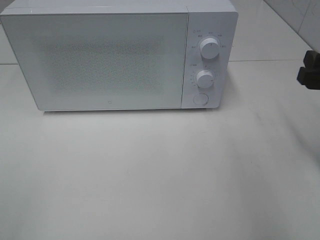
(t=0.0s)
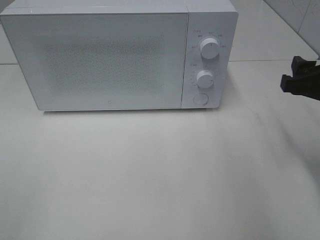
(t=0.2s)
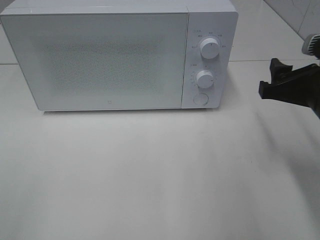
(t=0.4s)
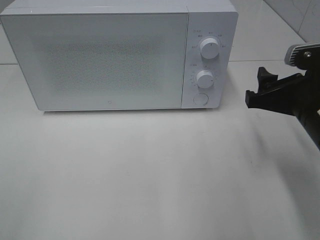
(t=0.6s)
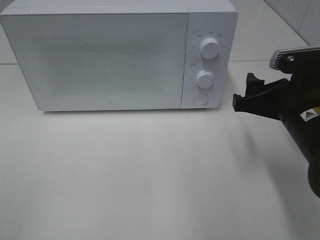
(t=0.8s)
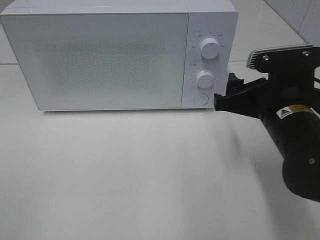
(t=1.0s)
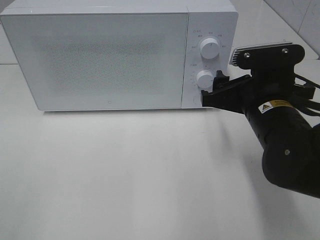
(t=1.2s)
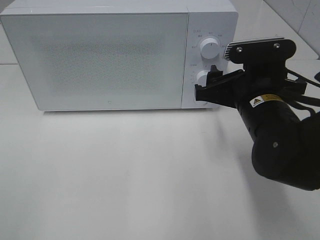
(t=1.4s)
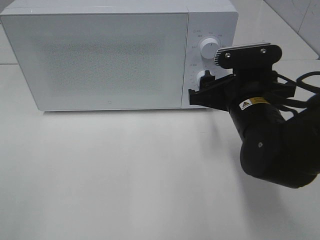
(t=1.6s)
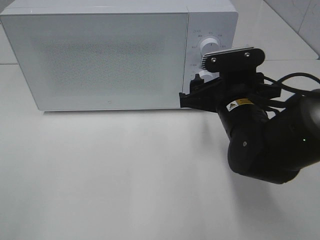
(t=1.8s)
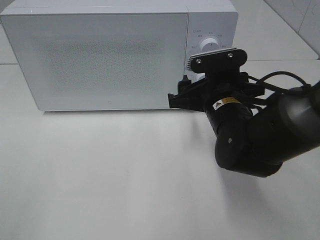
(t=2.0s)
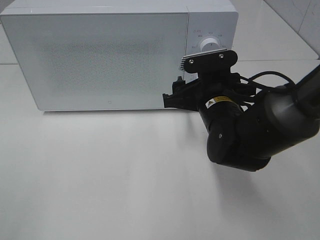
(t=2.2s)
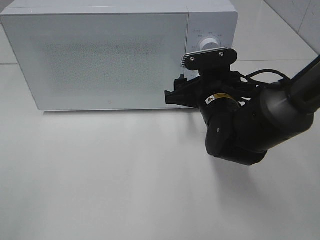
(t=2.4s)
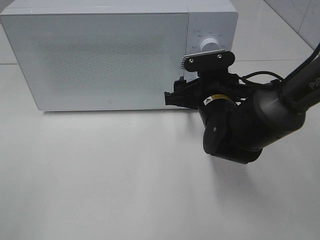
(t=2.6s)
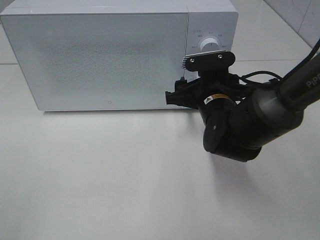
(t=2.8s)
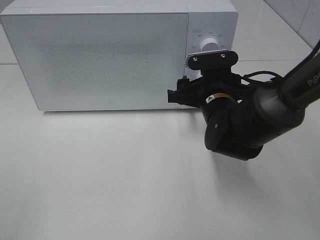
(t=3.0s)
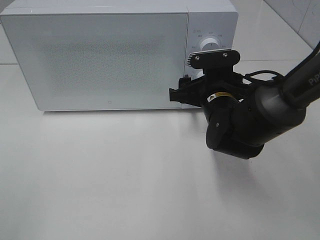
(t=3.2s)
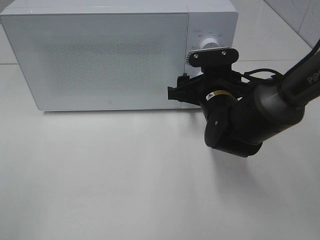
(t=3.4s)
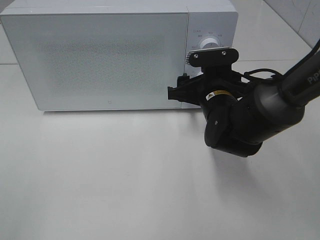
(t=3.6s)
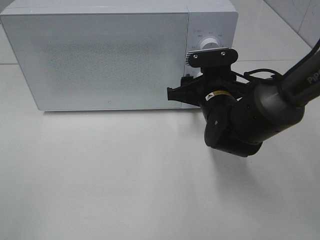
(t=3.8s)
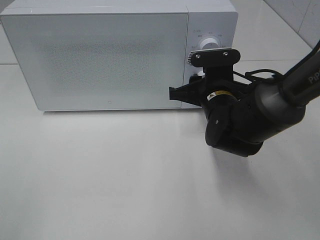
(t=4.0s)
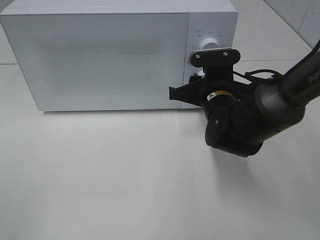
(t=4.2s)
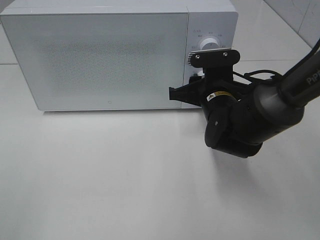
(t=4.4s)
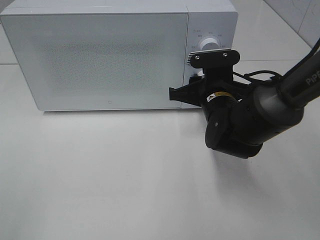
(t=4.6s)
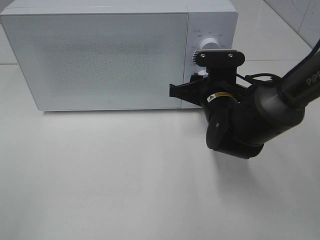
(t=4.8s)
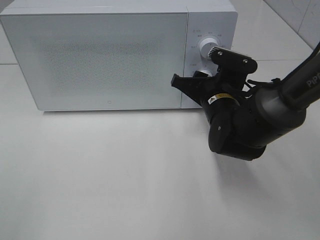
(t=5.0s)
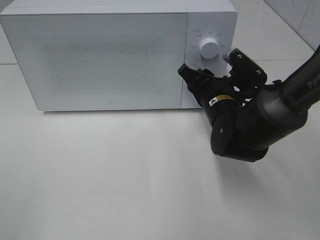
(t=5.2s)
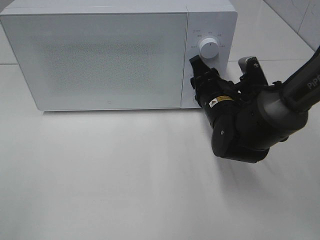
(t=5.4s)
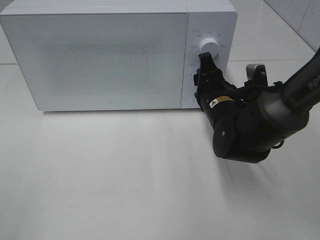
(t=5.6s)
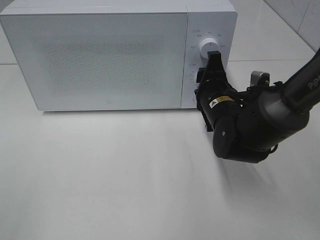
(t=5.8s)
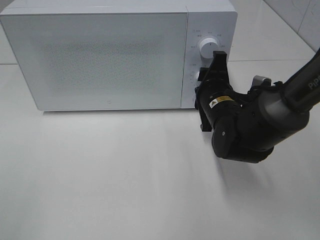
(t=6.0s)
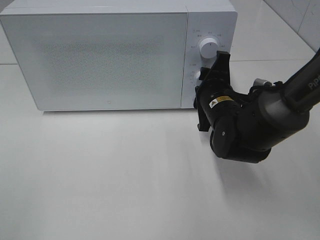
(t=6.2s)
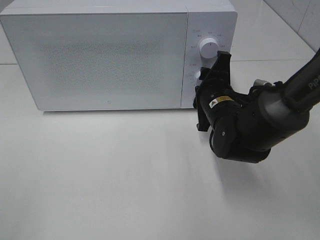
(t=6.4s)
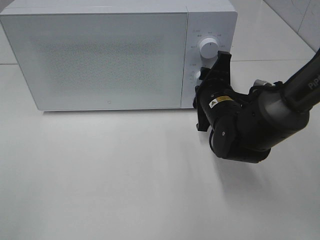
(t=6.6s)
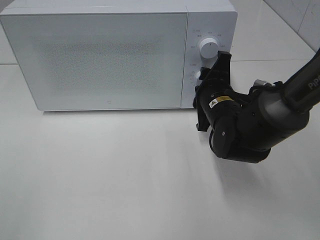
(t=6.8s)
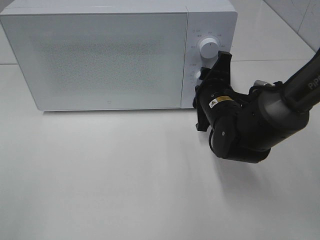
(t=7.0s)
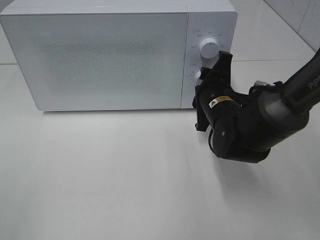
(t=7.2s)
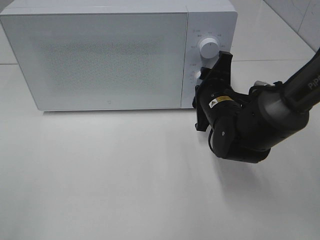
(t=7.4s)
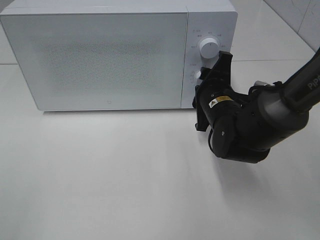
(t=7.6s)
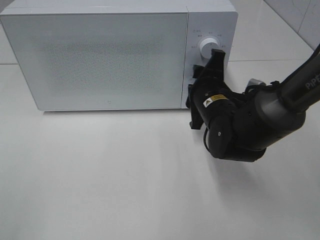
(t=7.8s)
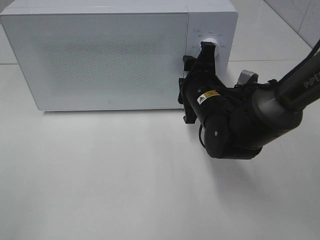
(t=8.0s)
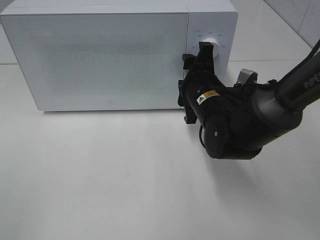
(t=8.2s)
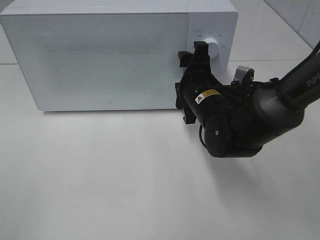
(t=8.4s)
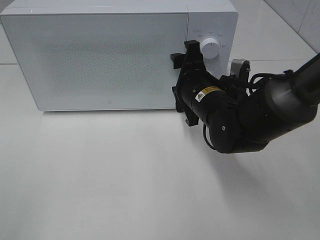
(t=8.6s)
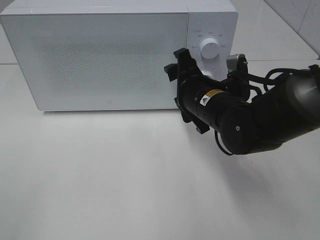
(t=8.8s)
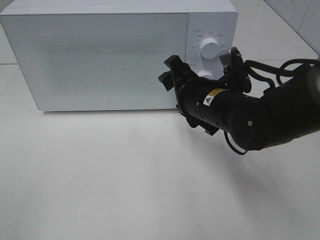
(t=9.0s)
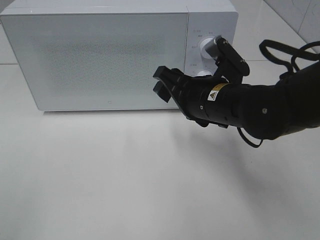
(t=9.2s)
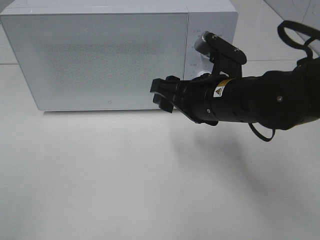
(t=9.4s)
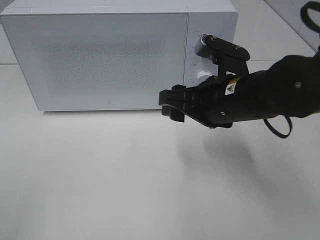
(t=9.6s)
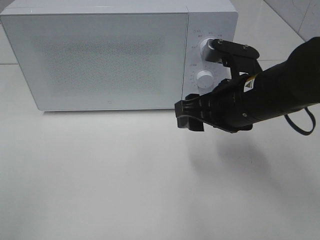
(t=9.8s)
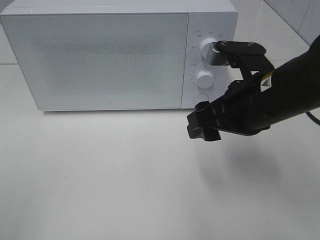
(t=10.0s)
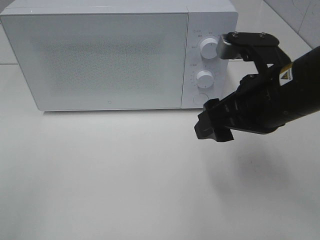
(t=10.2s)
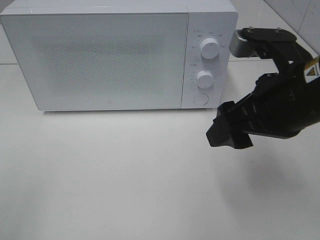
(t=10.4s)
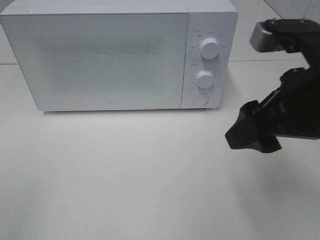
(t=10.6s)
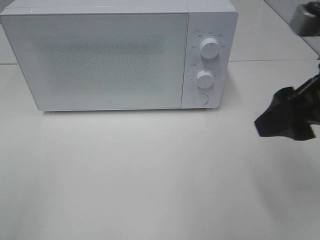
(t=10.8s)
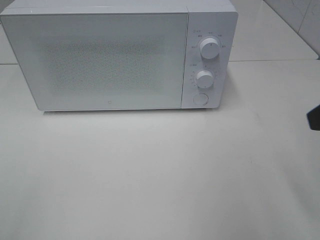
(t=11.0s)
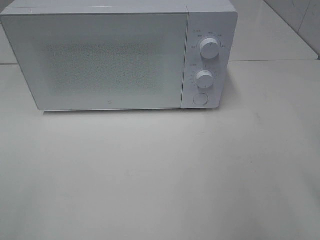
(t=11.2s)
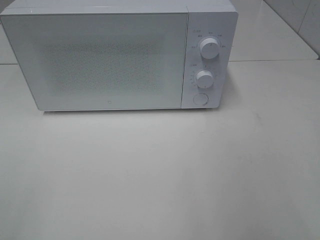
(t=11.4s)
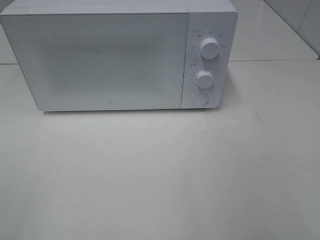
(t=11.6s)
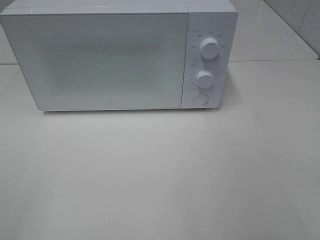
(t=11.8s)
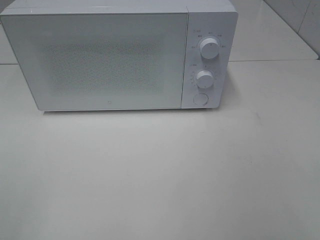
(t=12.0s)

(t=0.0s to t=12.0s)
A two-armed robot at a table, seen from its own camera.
Task of the whole recording: Heat the burger.
Step, t=0.0s - t=8.0s: Right hand: twist timer button.
t=0.0s - t=1.6s: The right gripper moves to the left, some 15 cm.
t=1.6s - t=3.0s: The right gripper moves forward, about 5 cm.
t=3.0s - t=4.4s: The right gripper closes up.
t=6.0s - t=7.6s: The grippers make only small movements.
t=7.6s - t=9.0s: The right gripper ends up about 5 cm from where it was.
t=9.0s - t=10.4s: The right gripper heads upward, backward and to the right, covering approximately 15 cm.
t=10.4s - t=12.0s: The right gripper moves backward and to the right, about 25 cm.

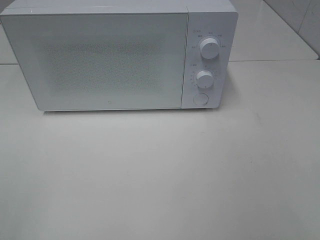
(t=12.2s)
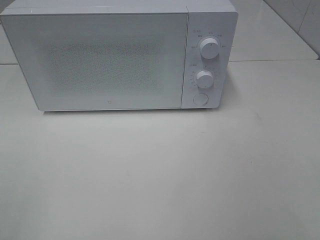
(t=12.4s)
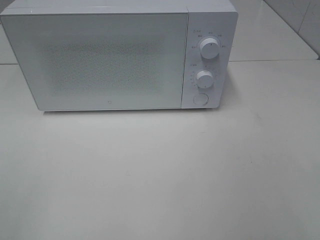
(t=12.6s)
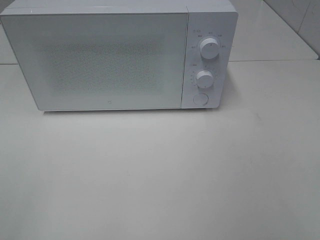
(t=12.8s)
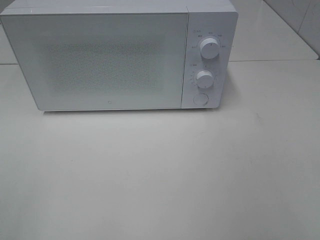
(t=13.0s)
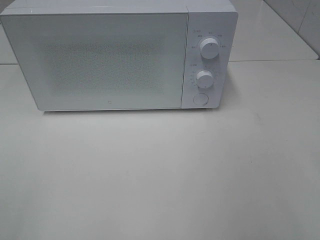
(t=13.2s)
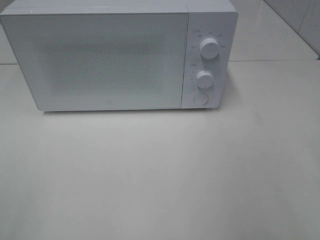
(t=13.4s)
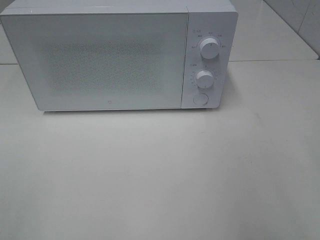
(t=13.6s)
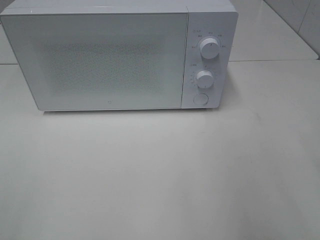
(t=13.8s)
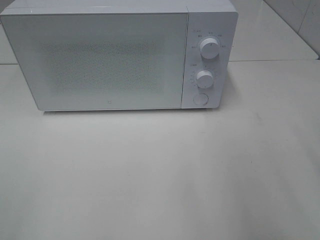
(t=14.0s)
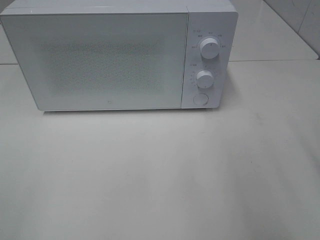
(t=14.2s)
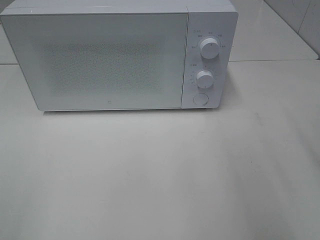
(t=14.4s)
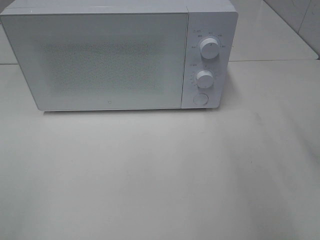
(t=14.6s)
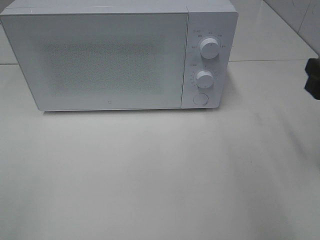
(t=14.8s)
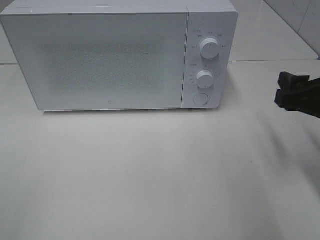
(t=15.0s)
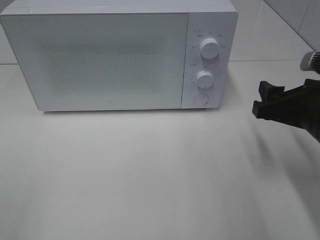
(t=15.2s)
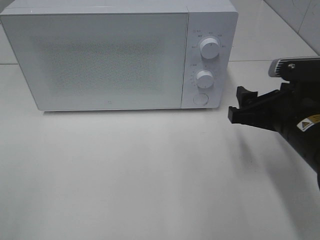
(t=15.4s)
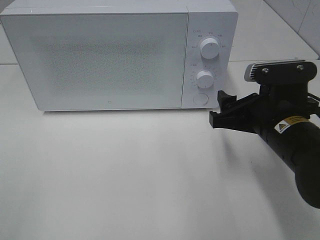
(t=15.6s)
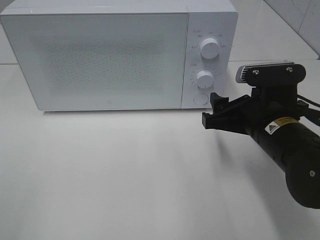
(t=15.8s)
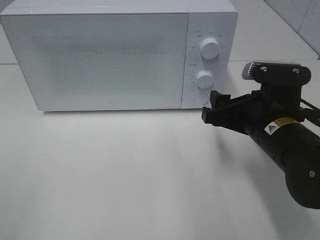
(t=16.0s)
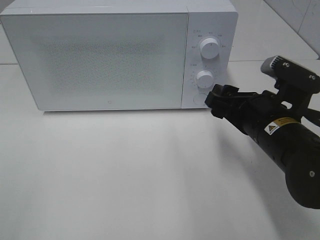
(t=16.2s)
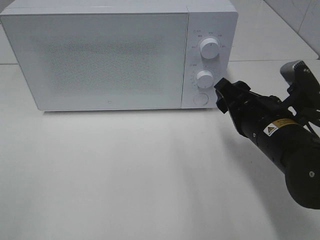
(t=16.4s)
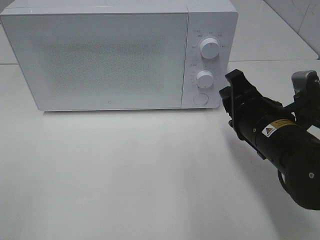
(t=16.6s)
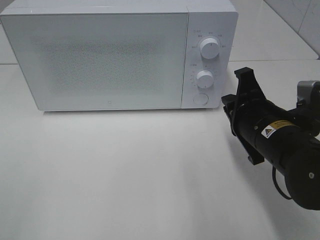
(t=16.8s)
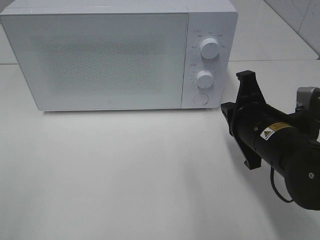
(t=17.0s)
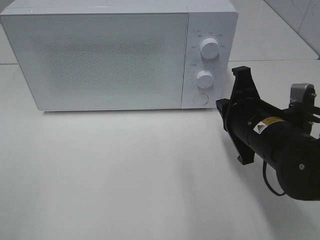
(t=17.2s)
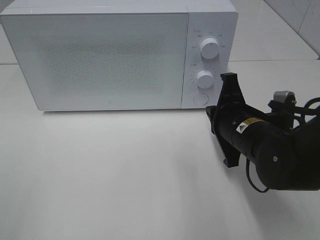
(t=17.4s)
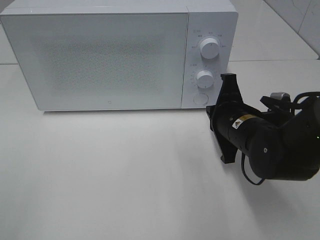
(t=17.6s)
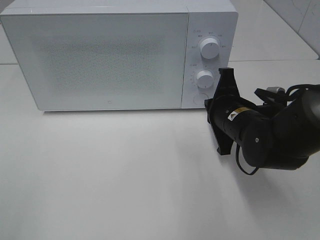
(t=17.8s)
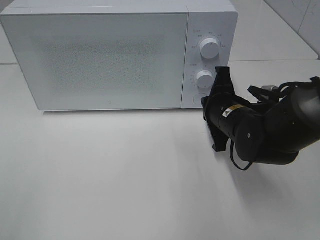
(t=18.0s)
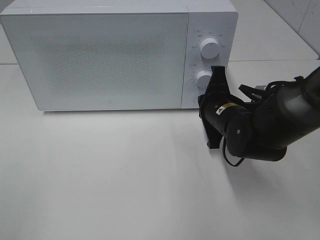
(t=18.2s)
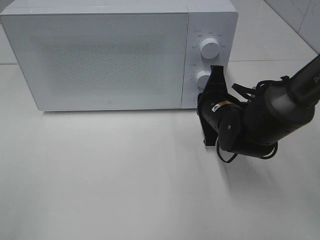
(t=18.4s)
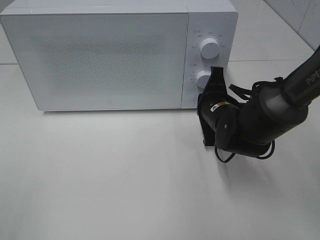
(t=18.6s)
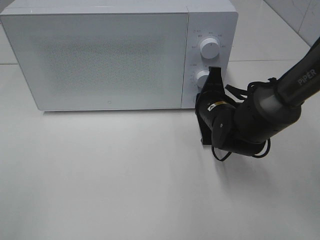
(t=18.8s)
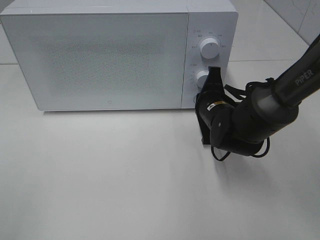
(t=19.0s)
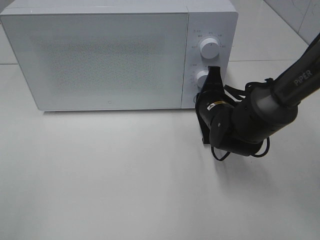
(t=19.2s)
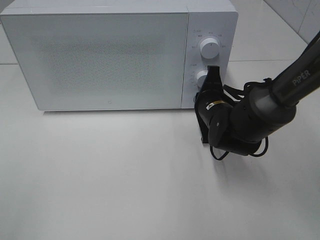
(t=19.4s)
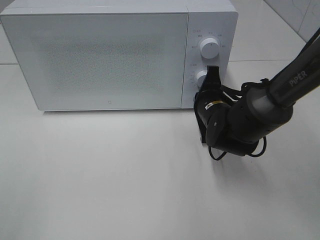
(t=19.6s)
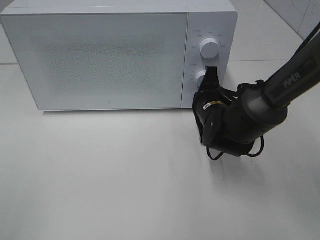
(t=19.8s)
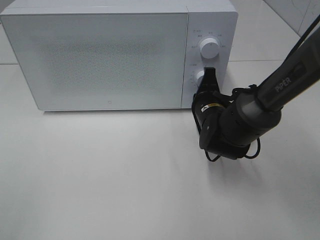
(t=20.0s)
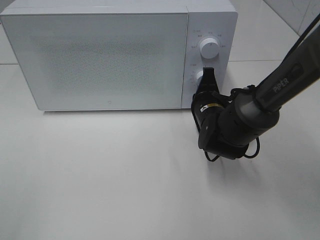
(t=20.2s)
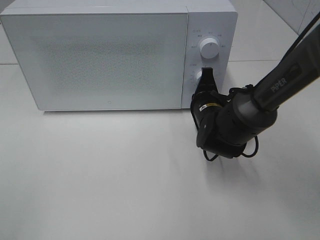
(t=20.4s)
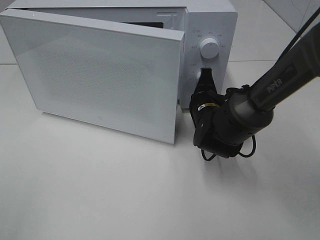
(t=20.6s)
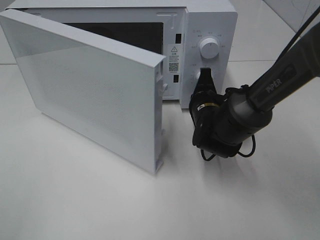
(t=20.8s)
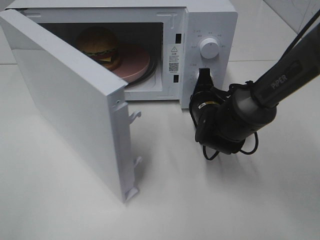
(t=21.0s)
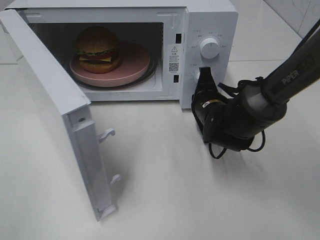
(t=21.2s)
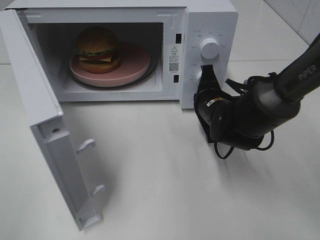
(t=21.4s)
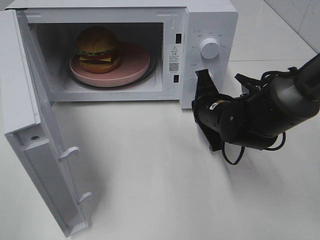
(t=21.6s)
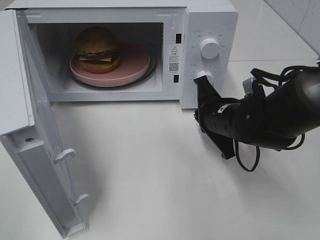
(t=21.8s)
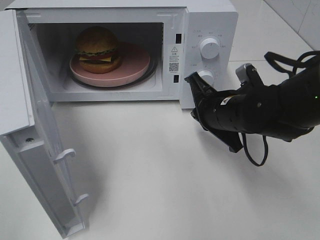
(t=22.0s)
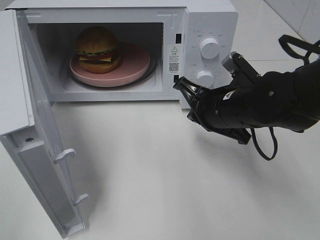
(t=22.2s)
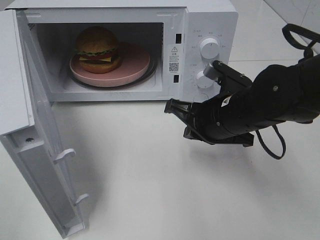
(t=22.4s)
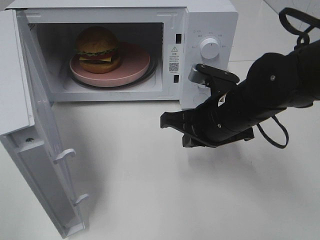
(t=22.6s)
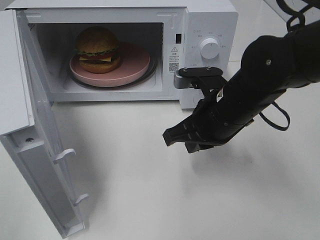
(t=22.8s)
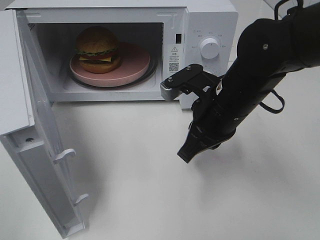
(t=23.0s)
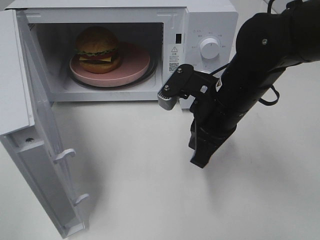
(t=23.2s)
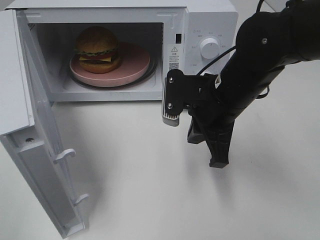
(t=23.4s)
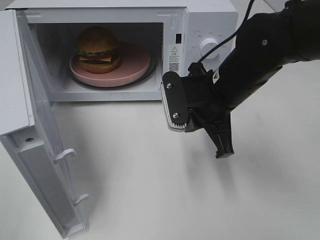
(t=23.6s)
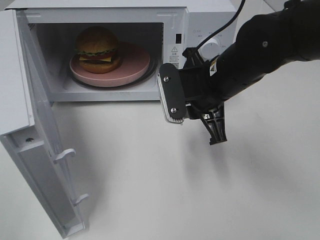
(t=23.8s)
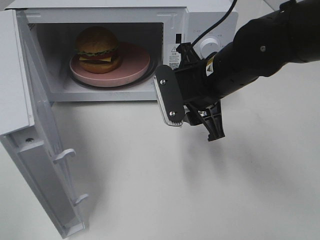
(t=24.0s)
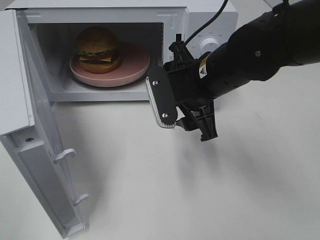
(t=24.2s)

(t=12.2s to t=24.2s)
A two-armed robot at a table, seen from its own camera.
Task of the whole recording: Heat the burger.
Step, t=12.2s - t=21.6s: Right hand: press the switch.
t=13.8s - t=15.2s: The right gripper heads downward, forward and to the left, covering about 15 cm.
t=15.2s - t=16.6s: The right gripper heads to the left, covering about 5 cm, and closes up.
t=16.6s - t=18.2s: The right gripper moves forward, about 10 cm, and closes up.
t=18.2s - t=19.8s: The grippers make only small movements.
t=21.2s - t=22.6s: The right gripper goes some 10 cm backward and upward.
t=22.6s - t=24.2s: The right gripper moves approximately 5 cm, and opens its fingers.
